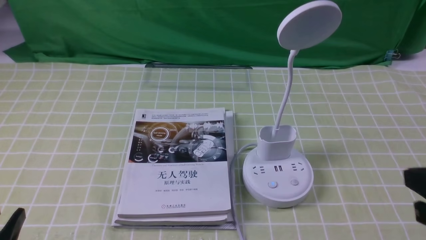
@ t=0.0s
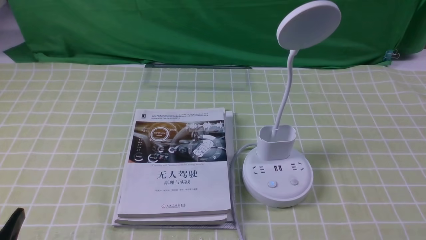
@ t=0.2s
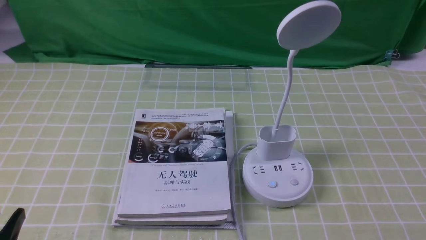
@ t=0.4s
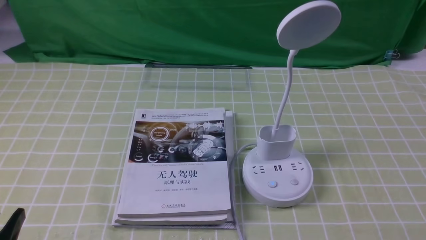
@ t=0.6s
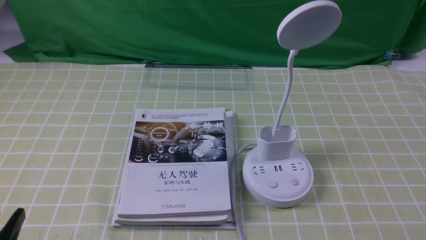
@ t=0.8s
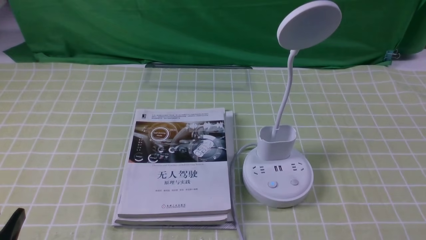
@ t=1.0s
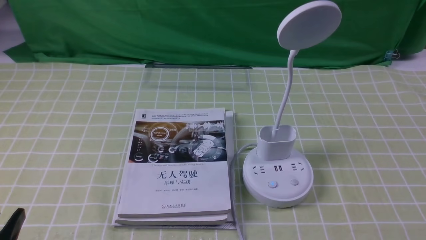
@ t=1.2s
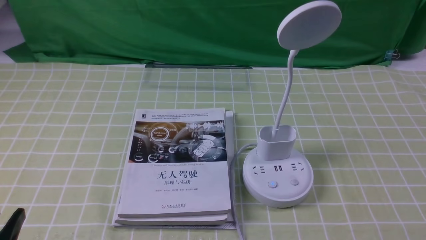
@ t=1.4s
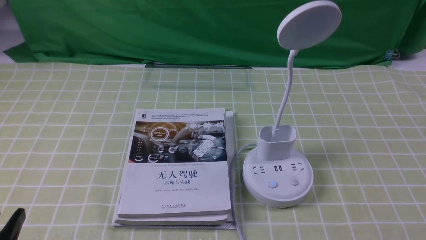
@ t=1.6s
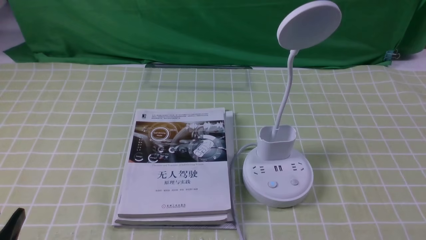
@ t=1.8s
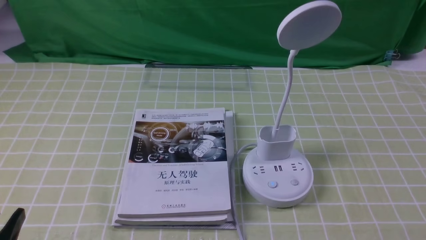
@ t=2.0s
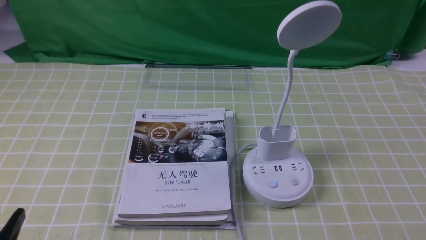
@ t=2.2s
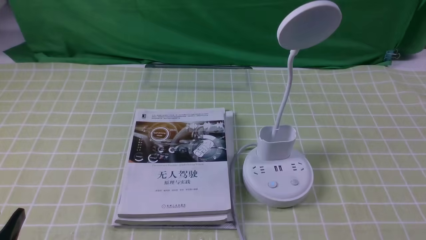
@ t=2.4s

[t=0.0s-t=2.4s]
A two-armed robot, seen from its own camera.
Task of the whole recording: turn off the desk lamp on the green coffee tablecloth by hand.
t=0.0s to t=1.2s: The right gripper moves downward and backward, about 15 cm.

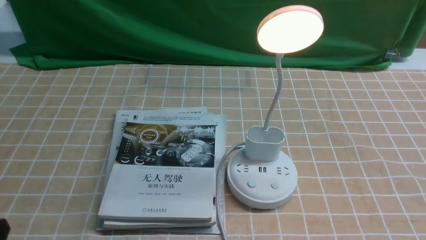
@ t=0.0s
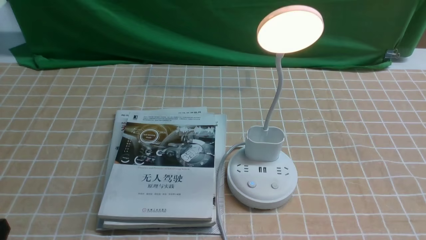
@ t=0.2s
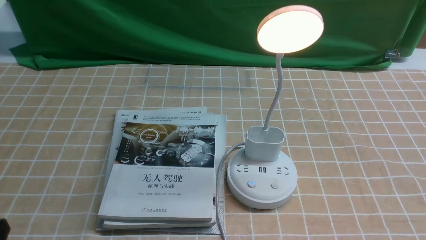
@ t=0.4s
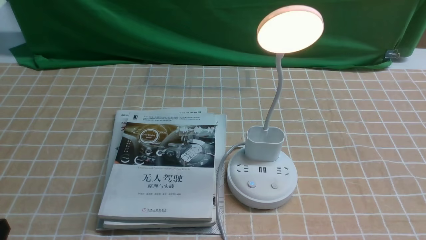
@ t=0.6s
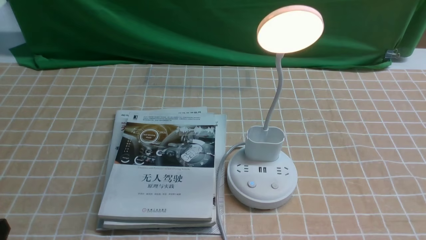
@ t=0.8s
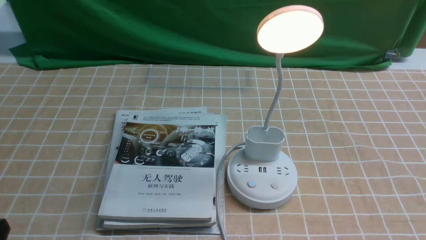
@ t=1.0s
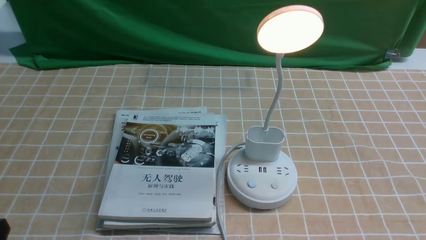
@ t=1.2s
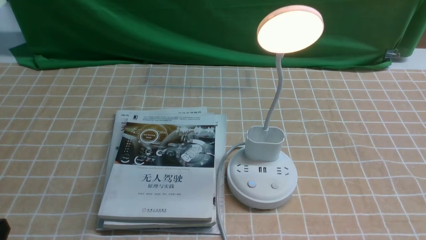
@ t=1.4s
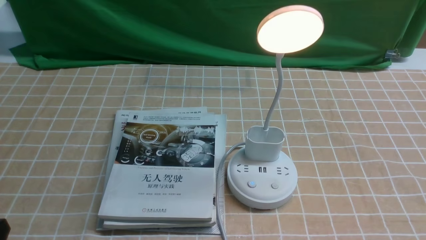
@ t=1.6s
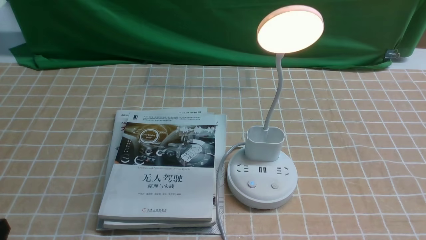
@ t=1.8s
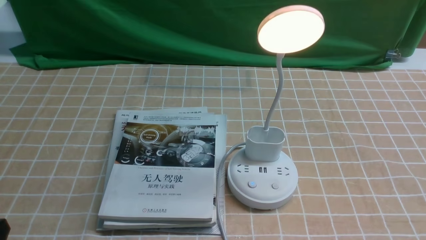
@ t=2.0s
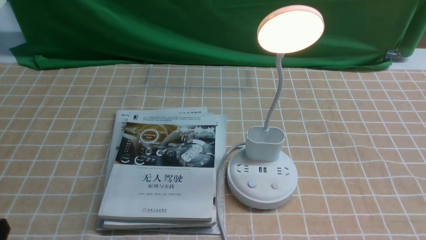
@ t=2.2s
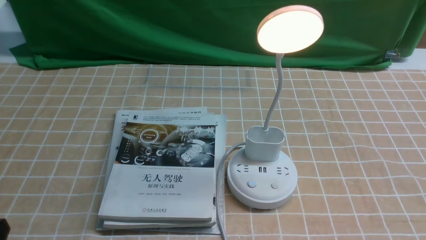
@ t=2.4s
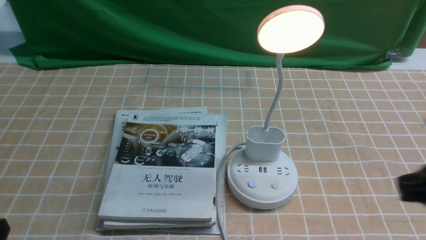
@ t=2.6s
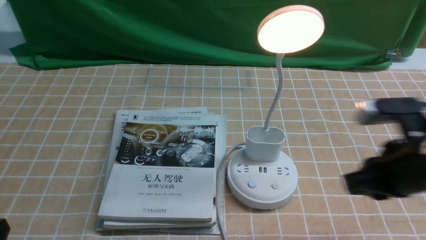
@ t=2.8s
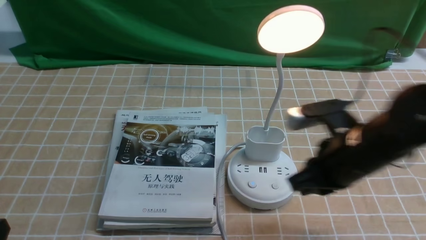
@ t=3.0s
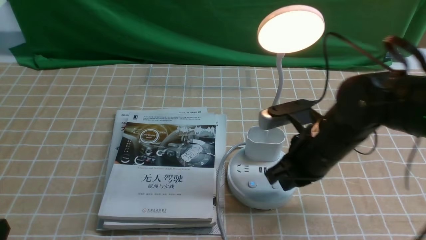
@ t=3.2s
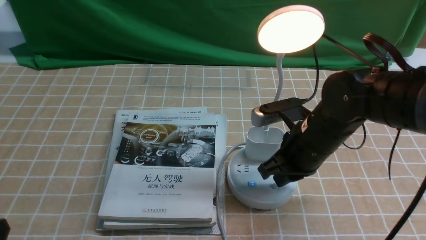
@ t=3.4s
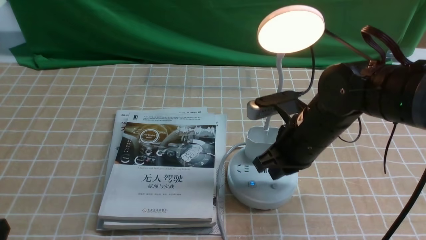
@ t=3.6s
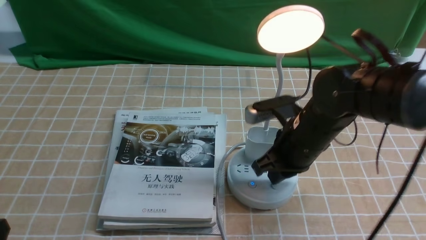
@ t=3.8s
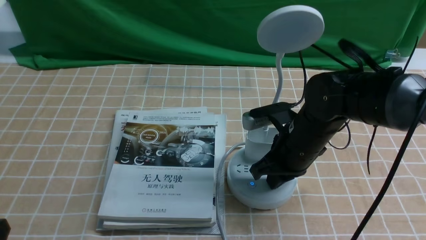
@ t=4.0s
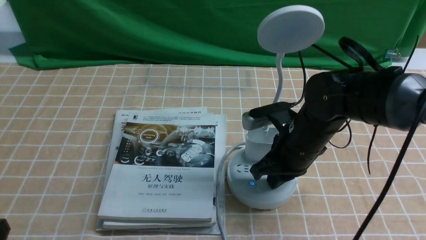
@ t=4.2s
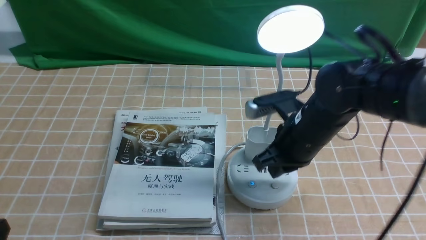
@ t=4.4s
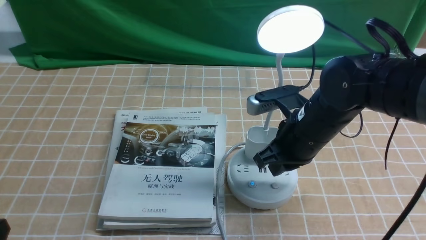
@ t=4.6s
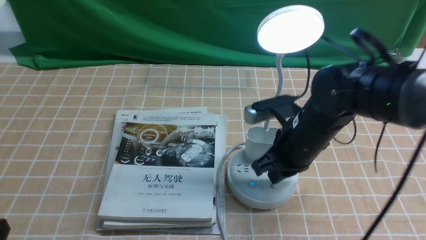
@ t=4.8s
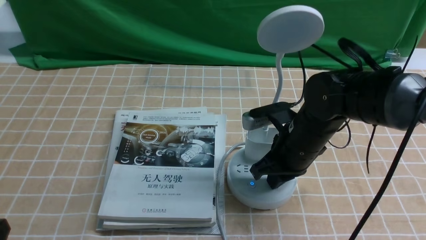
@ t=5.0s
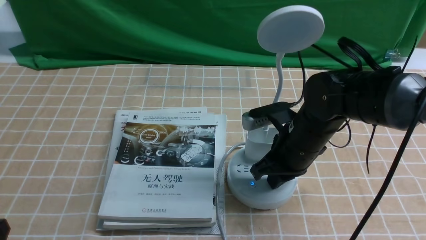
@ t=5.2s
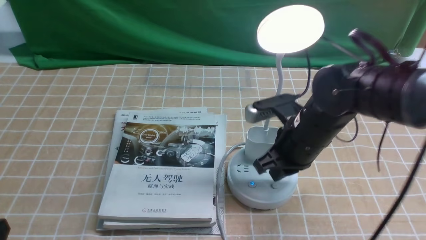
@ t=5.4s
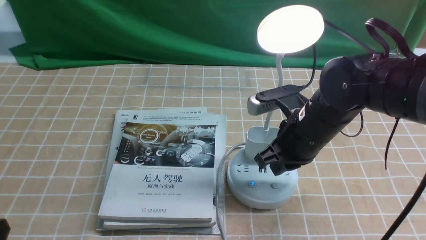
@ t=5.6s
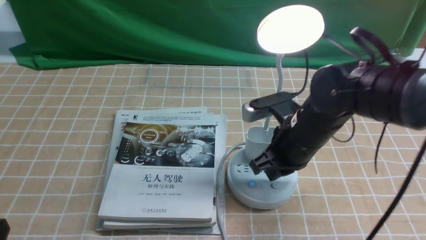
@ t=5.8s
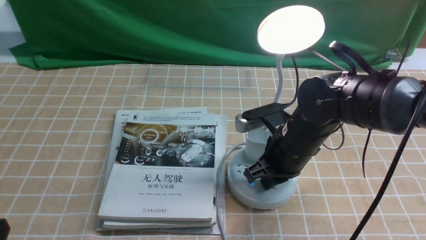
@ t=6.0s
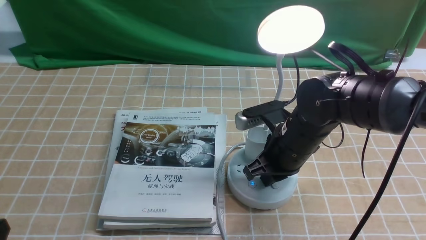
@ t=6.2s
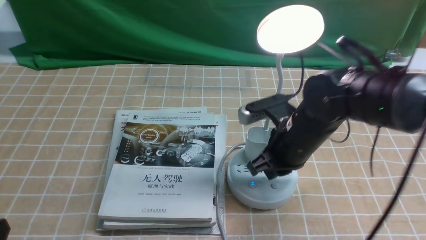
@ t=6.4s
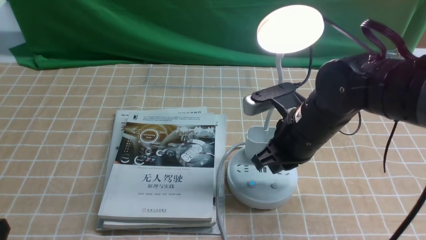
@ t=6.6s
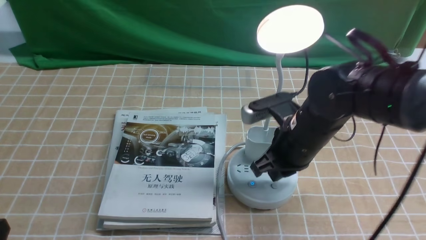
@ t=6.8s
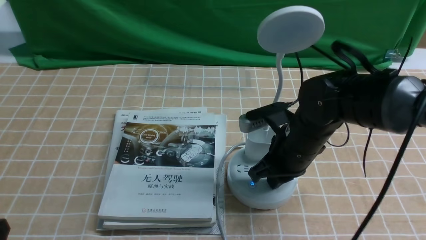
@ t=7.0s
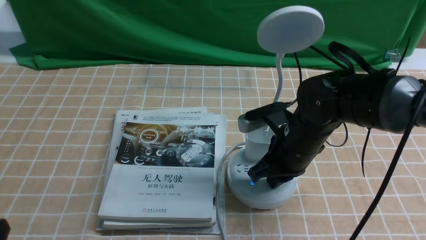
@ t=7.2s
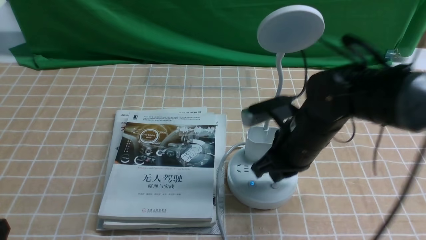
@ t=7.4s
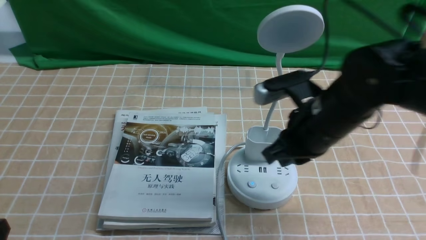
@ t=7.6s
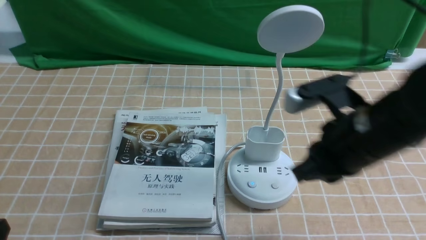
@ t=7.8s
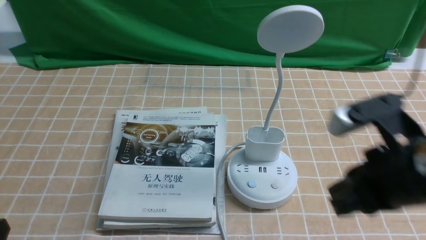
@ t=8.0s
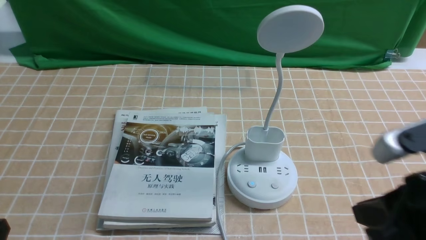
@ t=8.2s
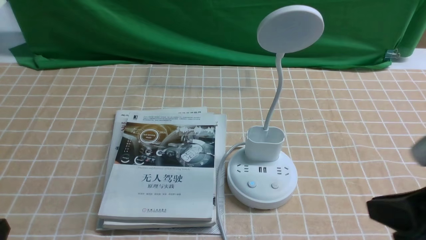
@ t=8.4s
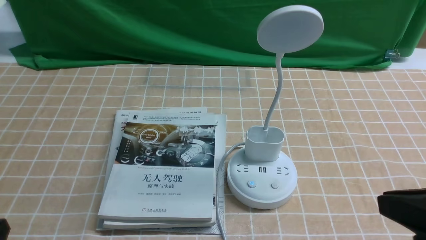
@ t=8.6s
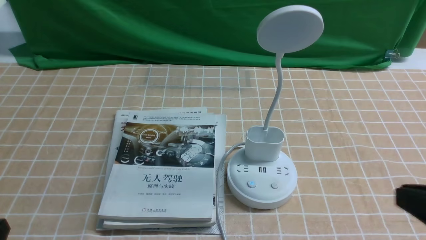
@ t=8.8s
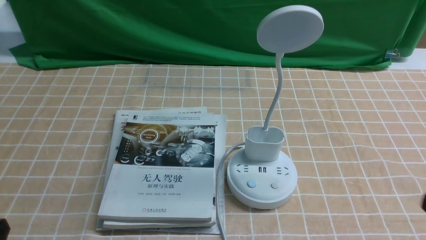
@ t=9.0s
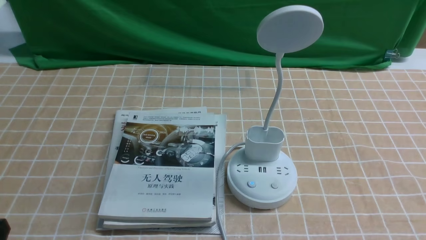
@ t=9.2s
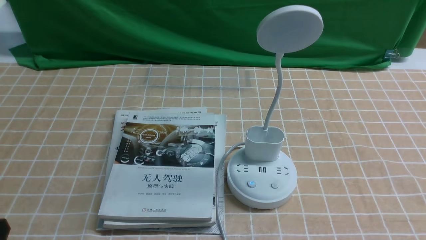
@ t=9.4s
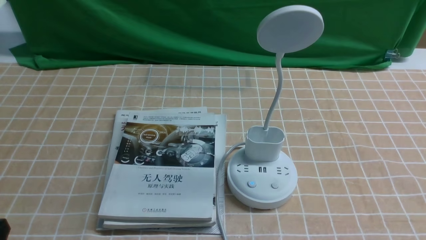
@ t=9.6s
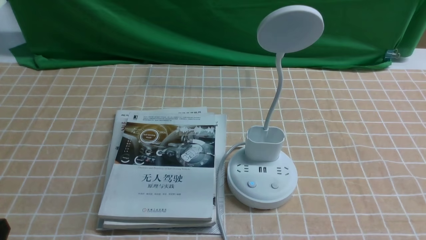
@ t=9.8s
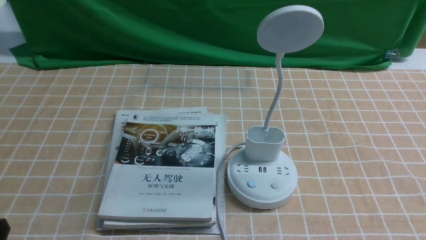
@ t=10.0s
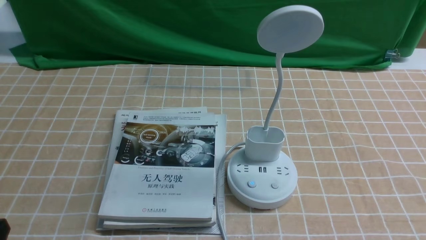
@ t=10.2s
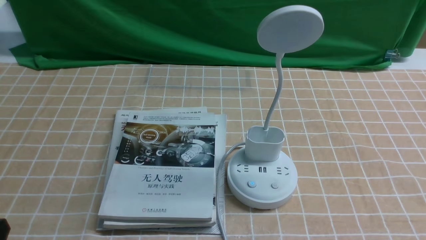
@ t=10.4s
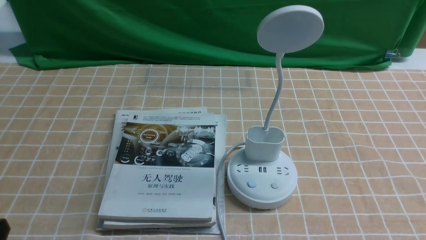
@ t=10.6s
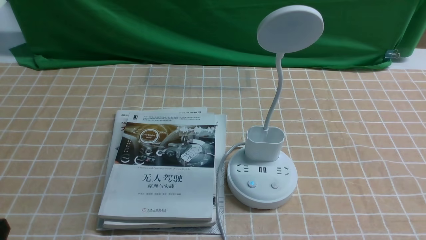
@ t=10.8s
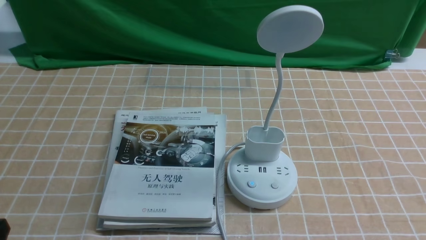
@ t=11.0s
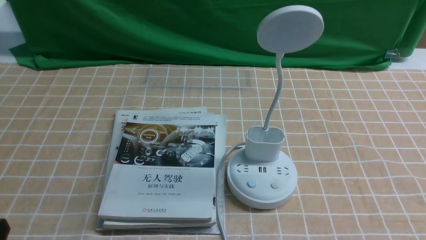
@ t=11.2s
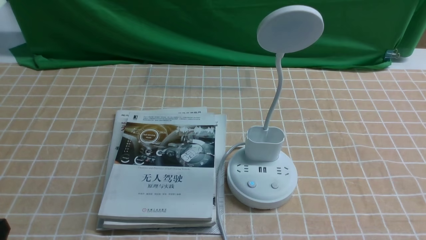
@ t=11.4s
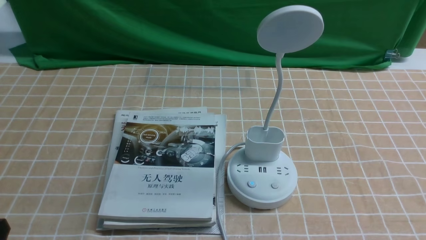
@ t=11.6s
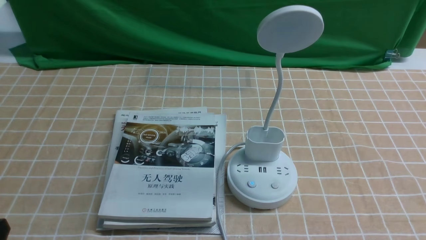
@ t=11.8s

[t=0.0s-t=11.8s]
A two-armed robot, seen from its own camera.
Task of the whole recording: turn off the desk lamp on the light coffee tablecloth by hand.
Step, t=0.0s to t=7.4s: use the right arm to press the button switch on the lamp holder.
t=1.4s to t=3.0s: The right gripper moves forward and to the left, approximately 20 cm, and closes up.
t=3.0s to t=4.4s: The right gripper goes approximately 10 cm to the left and forward.
t=4.4s to t=6.0s: The grippers stay close to where they were, moving slightly.
t=7.4s to t=8.8s: The right gripper shifts roughly 25 cm backward, to the right and upward.
t=8.8s to t=10.4s: The right gripper travels downward and to the right by about 10 cm.
